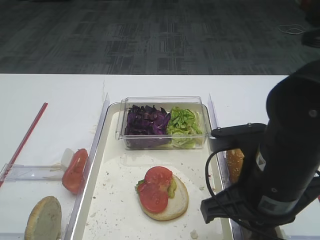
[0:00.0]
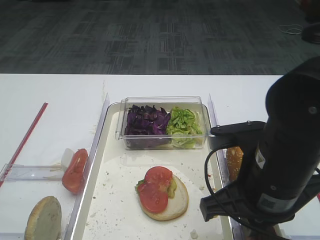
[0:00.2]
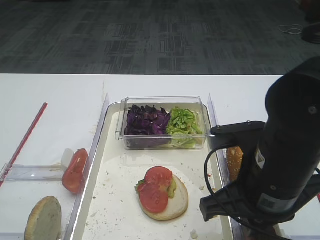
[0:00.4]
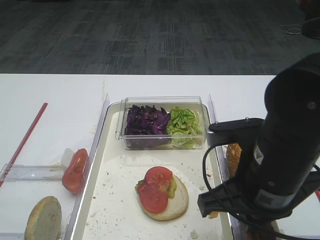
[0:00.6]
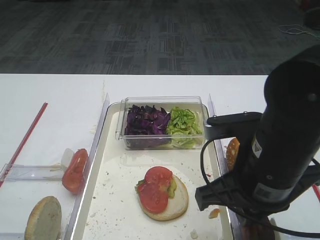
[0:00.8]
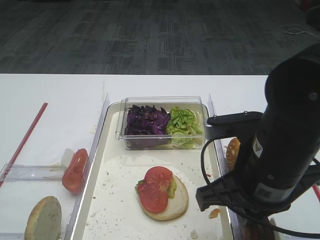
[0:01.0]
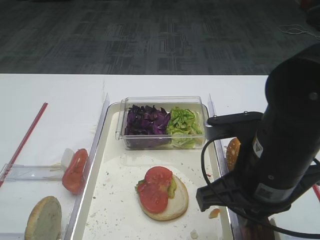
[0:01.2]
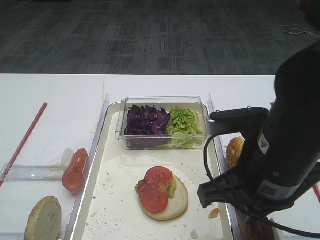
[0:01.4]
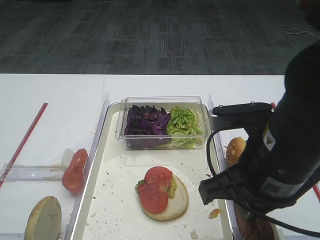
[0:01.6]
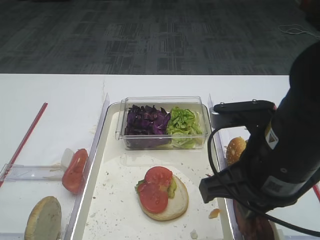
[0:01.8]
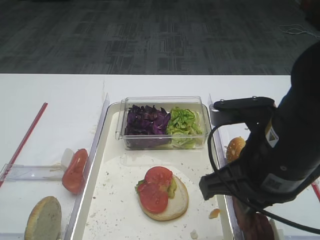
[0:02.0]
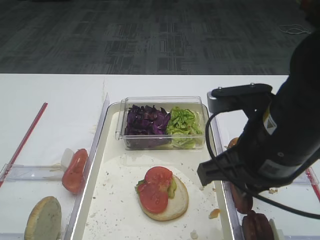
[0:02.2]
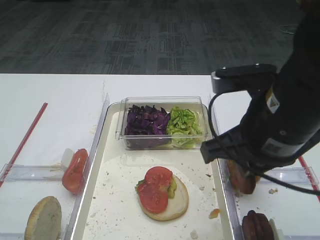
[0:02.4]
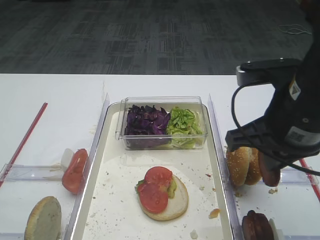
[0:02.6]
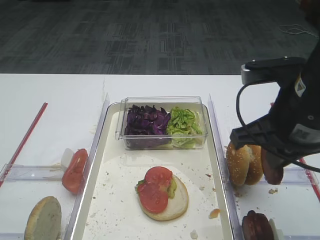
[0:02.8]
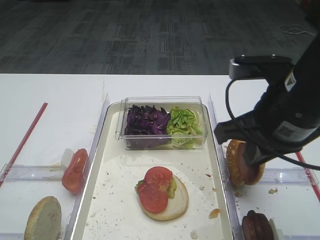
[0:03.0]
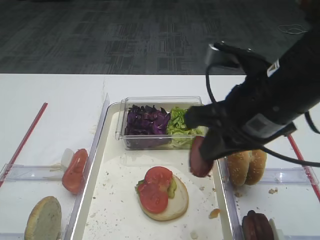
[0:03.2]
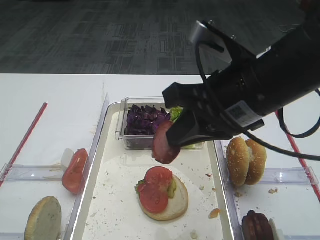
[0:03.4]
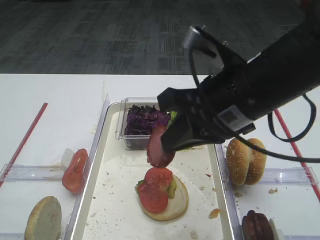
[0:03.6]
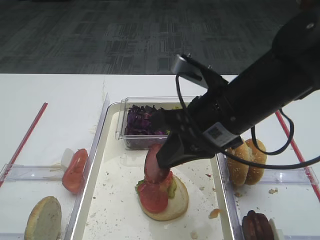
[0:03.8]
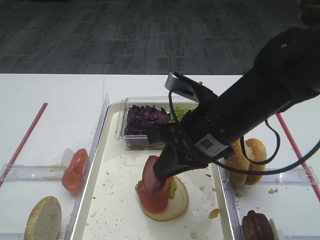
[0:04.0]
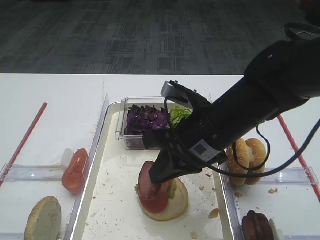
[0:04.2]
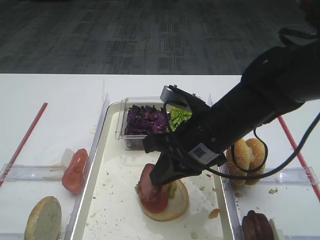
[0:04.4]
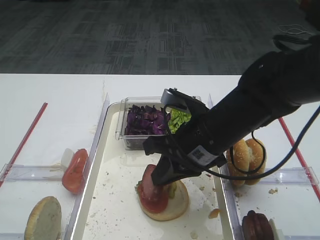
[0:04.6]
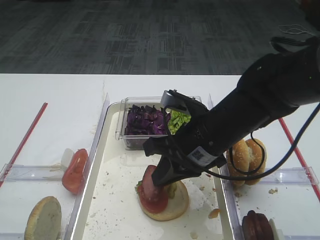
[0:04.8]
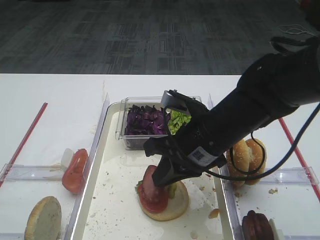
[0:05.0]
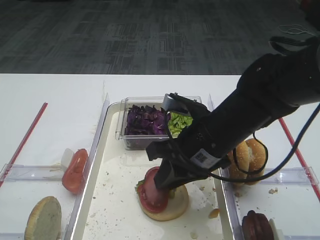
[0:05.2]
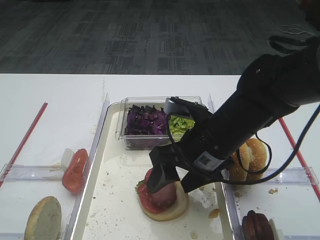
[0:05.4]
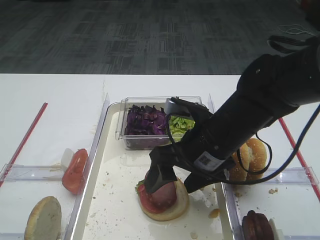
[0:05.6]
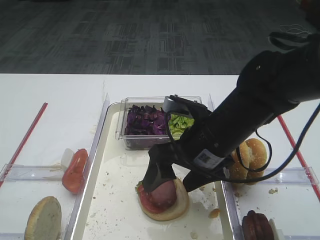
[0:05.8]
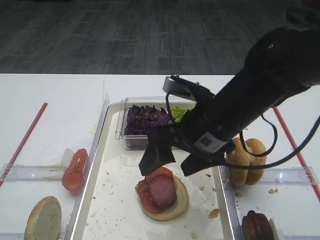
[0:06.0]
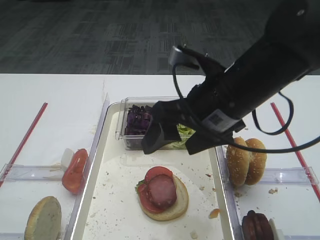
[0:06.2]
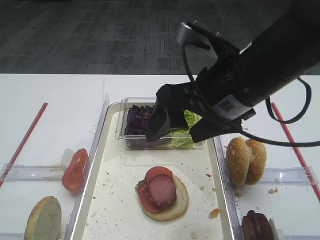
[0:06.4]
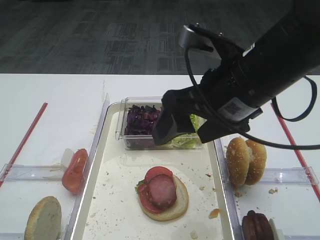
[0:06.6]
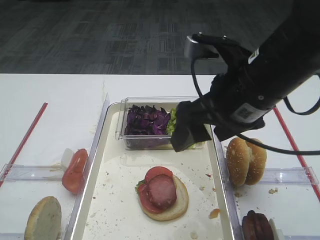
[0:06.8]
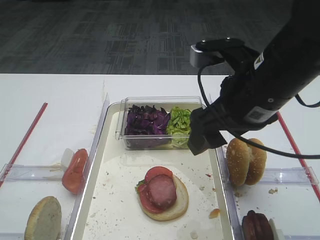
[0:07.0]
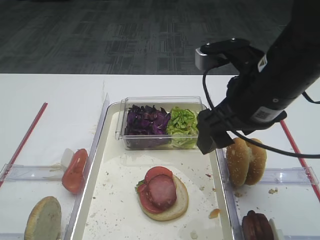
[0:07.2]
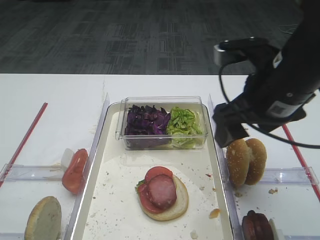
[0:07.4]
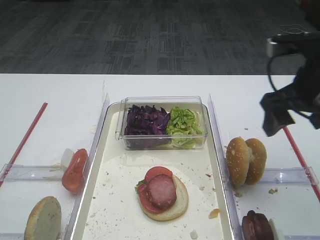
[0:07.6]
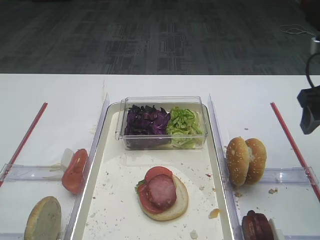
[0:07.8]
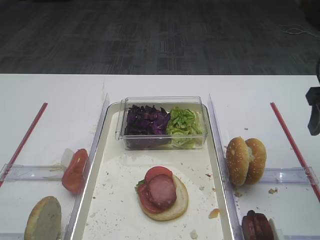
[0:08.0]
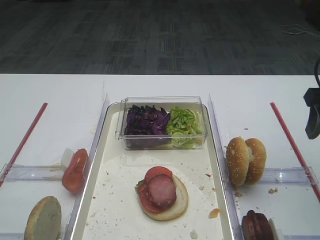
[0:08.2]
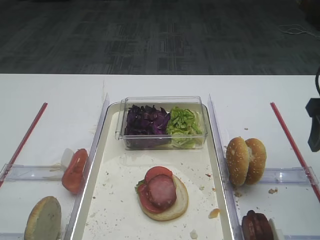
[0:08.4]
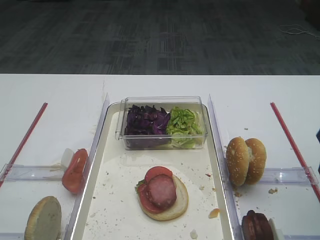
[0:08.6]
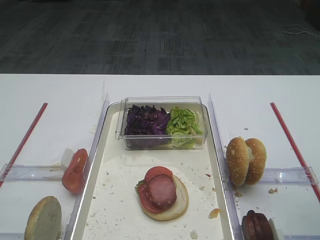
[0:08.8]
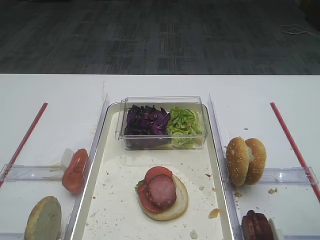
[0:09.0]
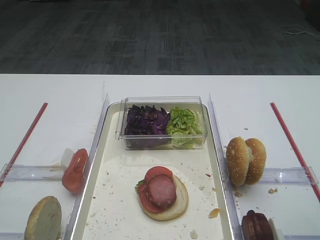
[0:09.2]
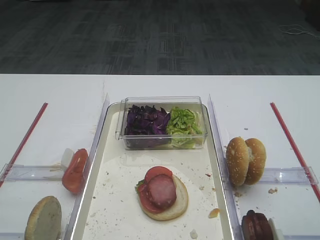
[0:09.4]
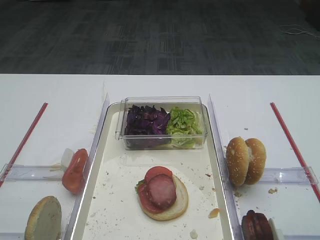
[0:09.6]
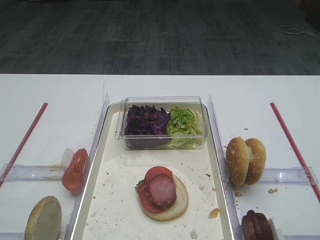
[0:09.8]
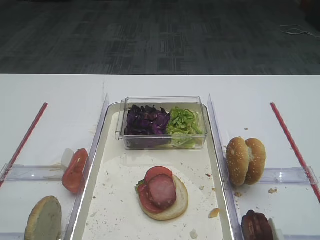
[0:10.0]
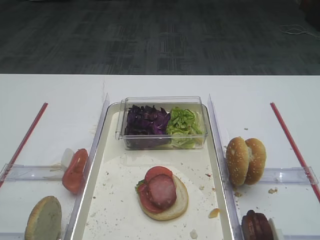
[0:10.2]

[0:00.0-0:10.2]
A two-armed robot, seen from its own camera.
Step, 0:00.0 to 0:02.0: Pick up the cutlet with the right gripper.
Step, 0:02.2 to 0:05.8: Place the cutlet on the tomato slice with the right gripper.
0:00.0 to 0:01.4: The grippers move only a little.
0:01.4 to 0:03.0: The right gripper changes place by approximately 5 cm.
0:03.0 to 0:04.4: The right gripper is displaced to the left and downward by approximately 10 cm.
0:04.4 to 0:05.8: The right gripper opens its fingers.
0:05.8 to 0:07.2: The right gripper is displaced upward by approximately 10 cm.
0:07.2 to 0:08.8: The right gripper is displaced to the right and backward by some 15 cm.
0:08.8 to 0:10.2: The right gripper is displaced backward by roughly 15 cm.

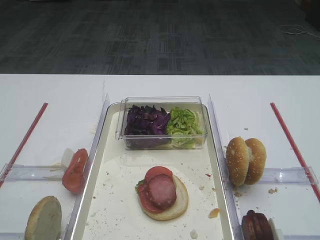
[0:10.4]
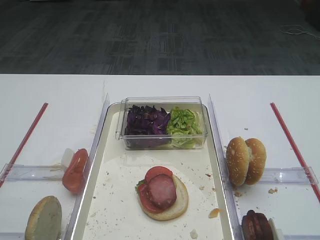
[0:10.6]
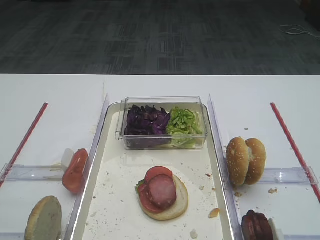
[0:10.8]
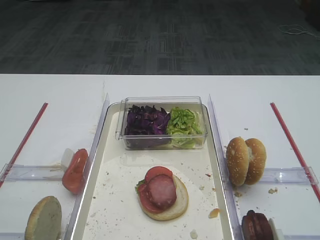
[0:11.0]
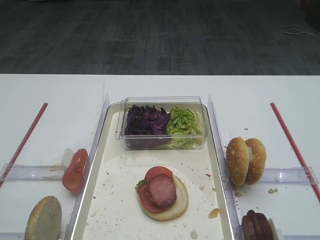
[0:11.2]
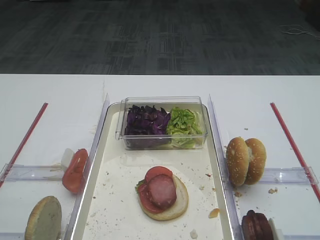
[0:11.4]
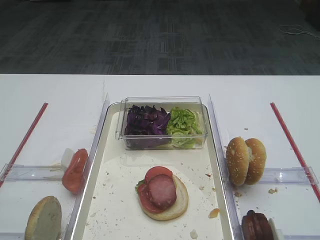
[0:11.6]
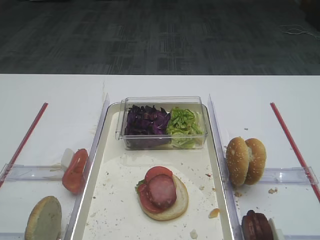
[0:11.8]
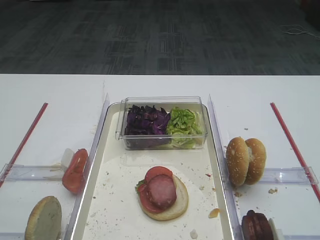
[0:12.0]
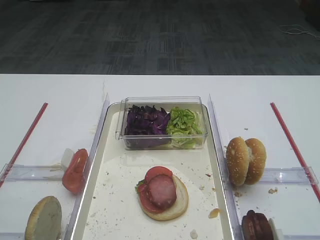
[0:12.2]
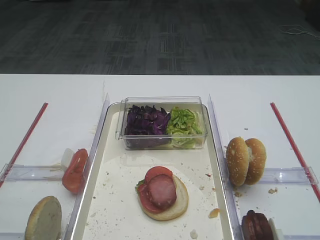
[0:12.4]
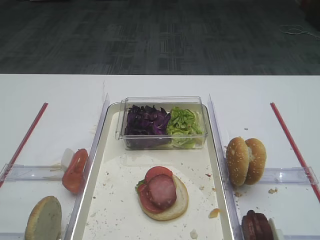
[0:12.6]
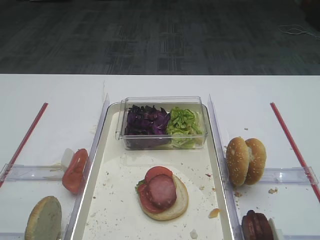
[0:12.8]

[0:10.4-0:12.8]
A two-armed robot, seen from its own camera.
0:10.4 to 0:12.8: Neither gripper changes place.

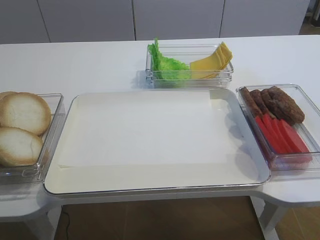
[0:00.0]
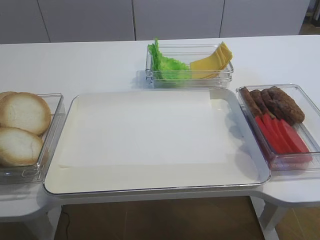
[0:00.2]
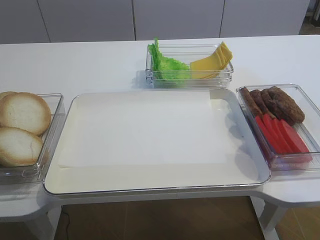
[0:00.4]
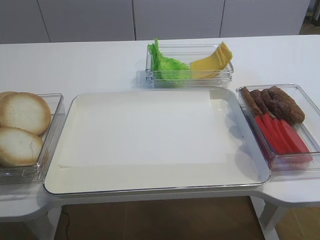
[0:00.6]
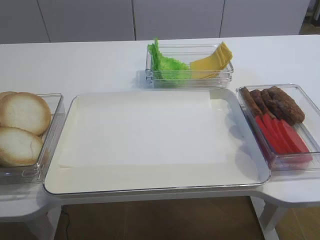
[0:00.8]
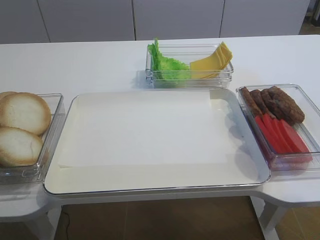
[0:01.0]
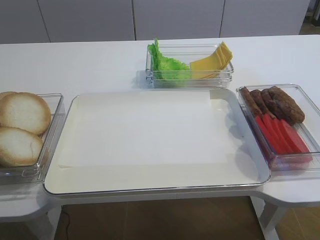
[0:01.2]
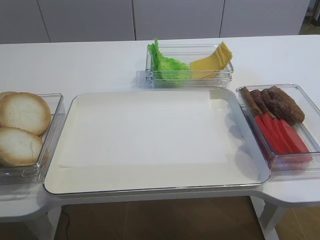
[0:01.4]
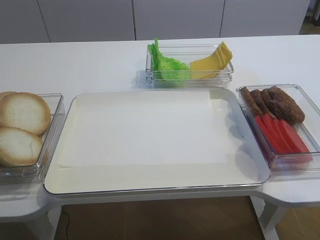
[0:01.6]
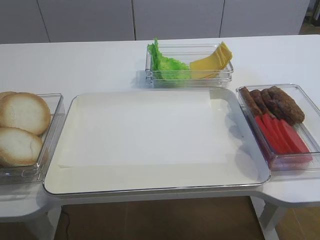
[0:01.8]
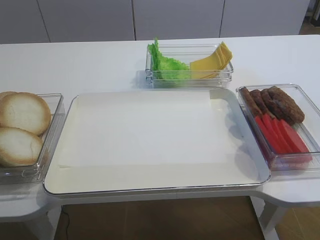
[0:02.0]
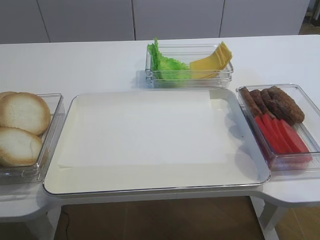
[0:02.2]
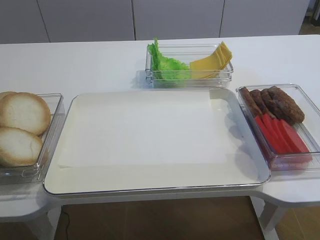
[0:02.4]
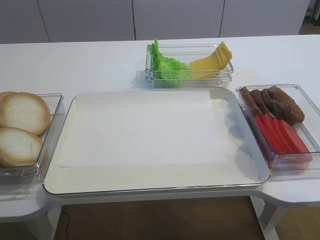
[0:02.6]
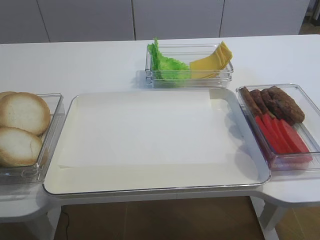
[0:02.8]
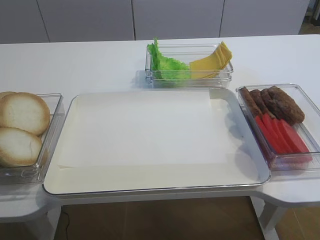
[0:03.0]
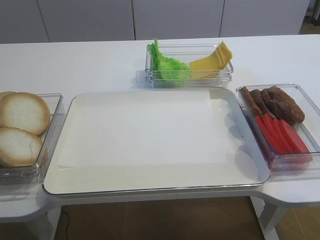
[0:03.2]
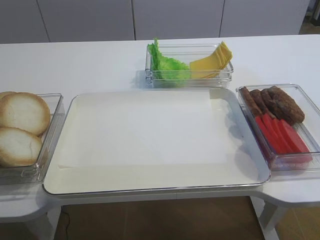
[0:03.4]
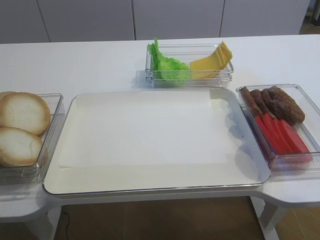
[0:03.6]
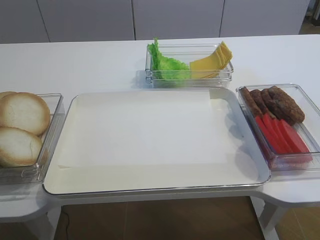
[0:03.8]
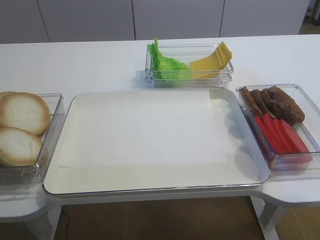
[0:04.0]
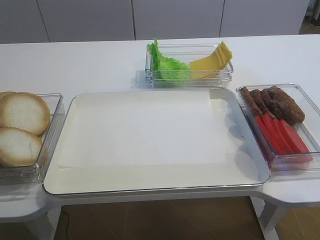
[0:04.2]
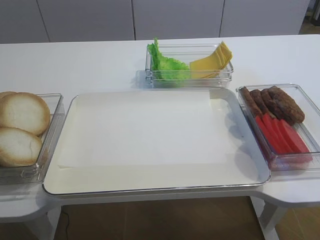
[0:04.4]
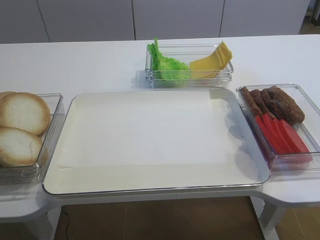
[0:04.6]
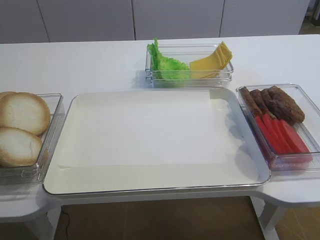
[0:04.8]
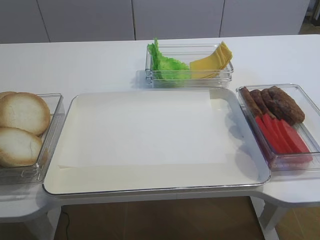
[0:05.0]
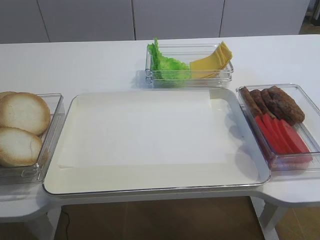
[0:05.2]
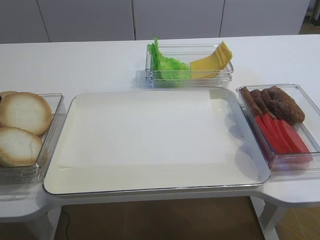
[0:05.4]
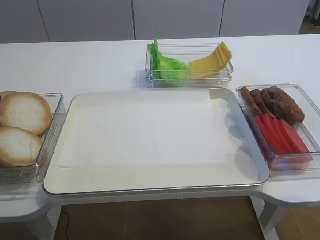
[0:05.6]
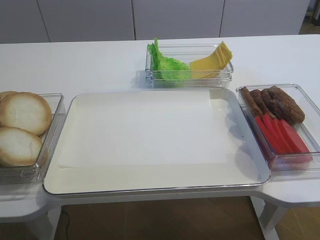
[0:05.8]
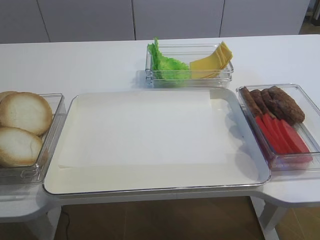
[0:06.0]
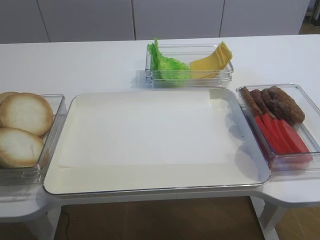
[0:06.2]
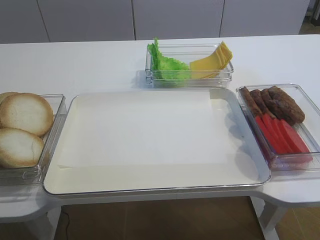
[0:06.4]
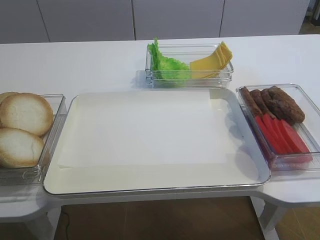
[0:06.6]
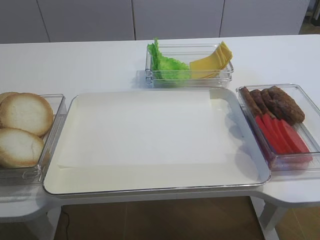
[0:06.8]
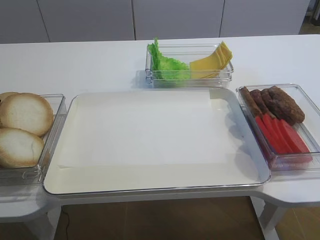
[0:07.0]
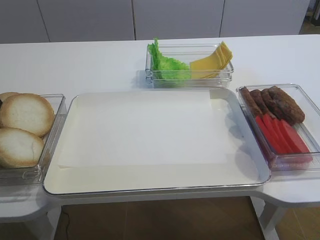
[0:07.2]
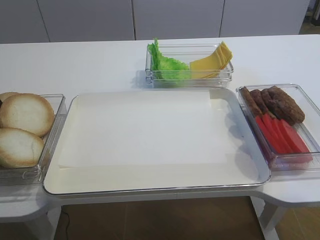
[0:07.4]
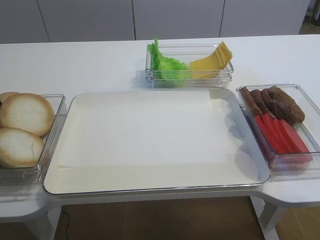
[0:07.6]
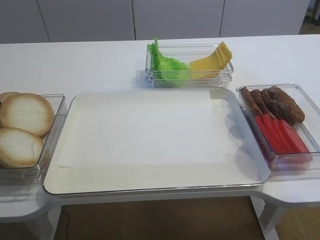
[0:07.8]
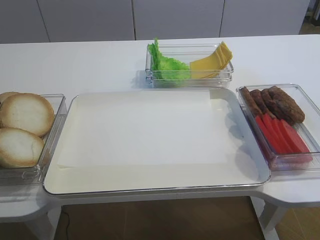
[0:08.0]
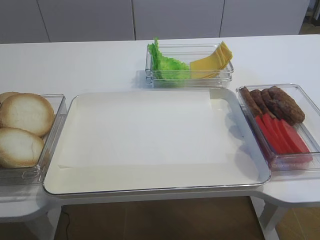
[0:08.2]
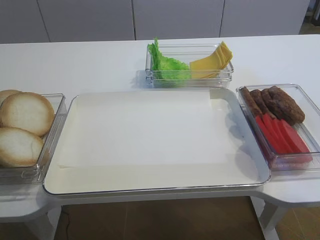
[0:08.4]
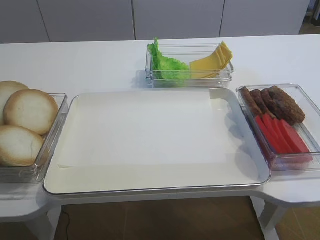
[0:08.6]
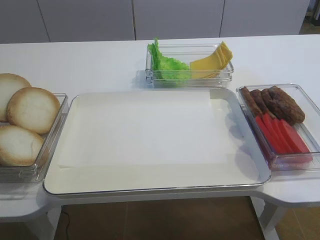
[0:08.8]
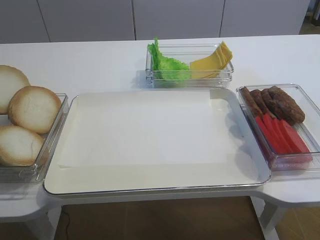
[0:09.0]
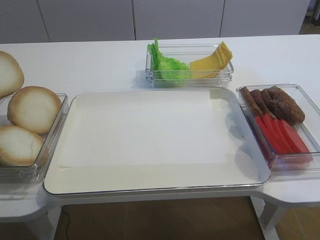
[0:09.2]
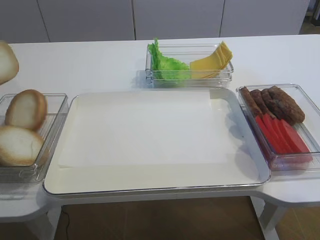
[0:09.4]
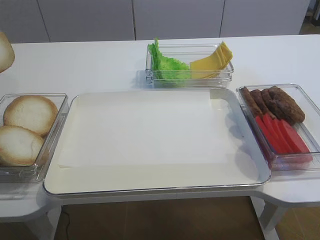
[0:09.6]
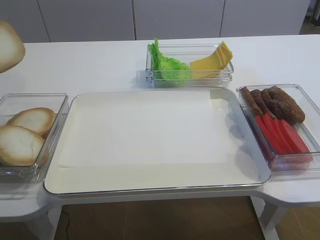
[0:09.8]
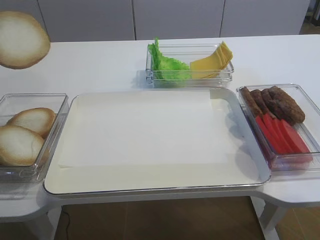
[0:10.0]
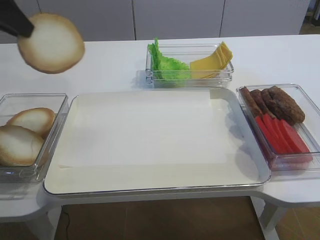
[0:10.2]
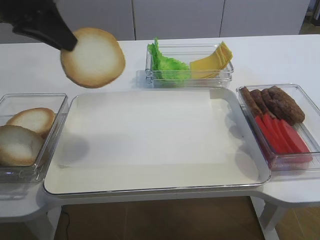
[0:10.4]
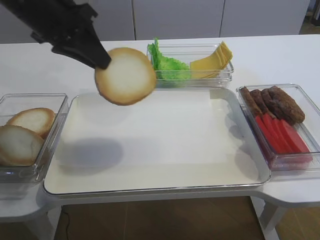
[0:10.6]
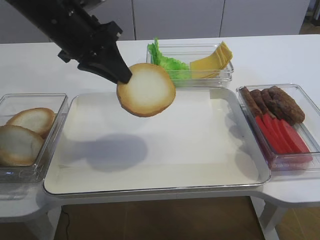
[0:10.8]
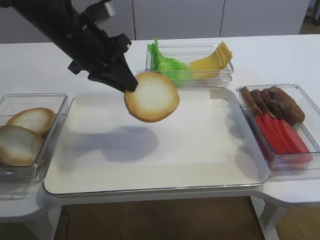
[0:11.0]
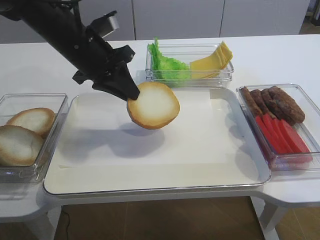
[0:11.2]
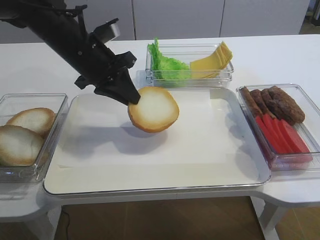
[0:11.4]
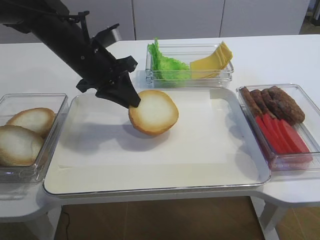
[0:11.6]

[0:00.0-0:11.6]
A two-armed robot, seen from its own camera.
Step, 0:00.0 to 0:09.2: Pick up the bread slice with the left gripper.
0:05.8 to 0:07.2: Both grippers stay put.
0:07.2 to 0:08.8: The grippers make only small movements.
0:08.8 to 0:10.2: The left gripper is displaced to the right and upward by roughly 15 cm.
0:10.2 to 0:11.6: The left gripper is displaced downward, to the right and forward by about 20 cm.
